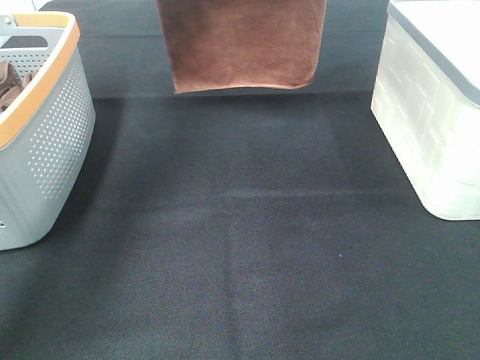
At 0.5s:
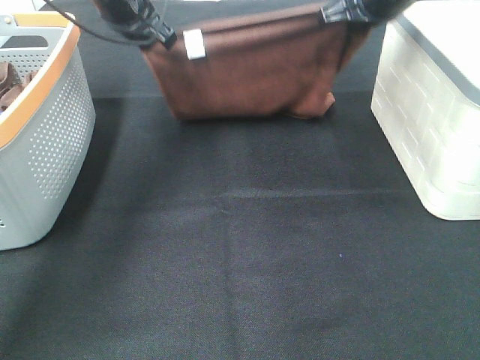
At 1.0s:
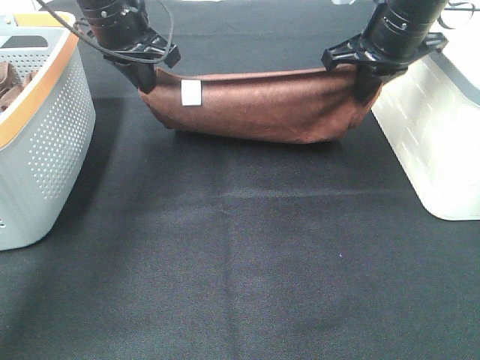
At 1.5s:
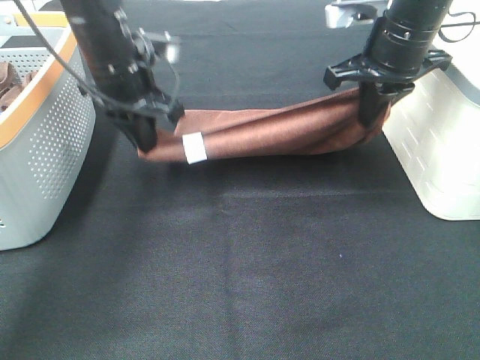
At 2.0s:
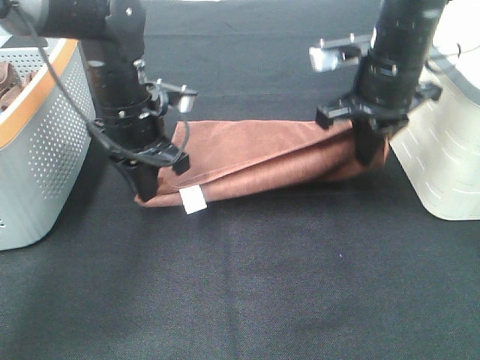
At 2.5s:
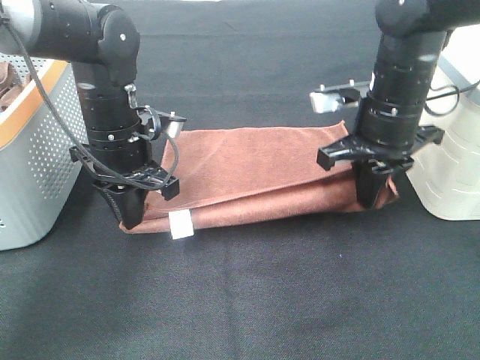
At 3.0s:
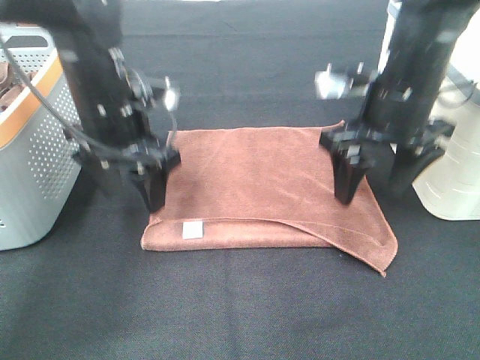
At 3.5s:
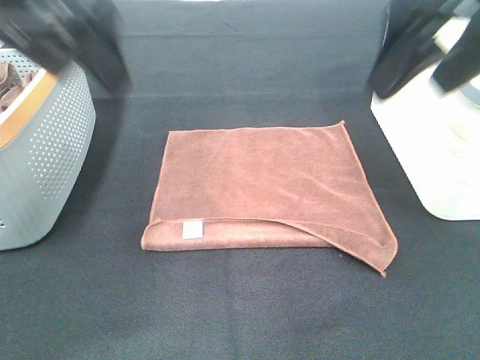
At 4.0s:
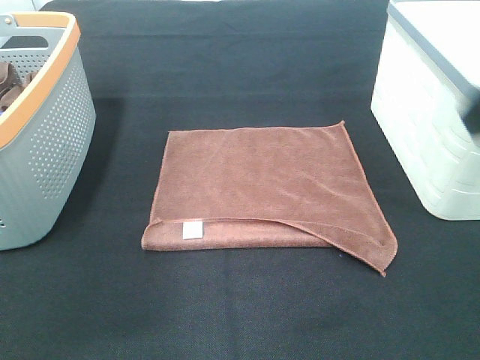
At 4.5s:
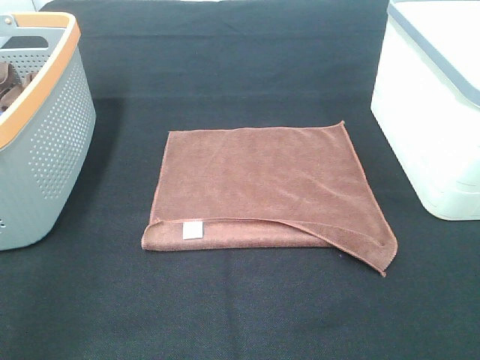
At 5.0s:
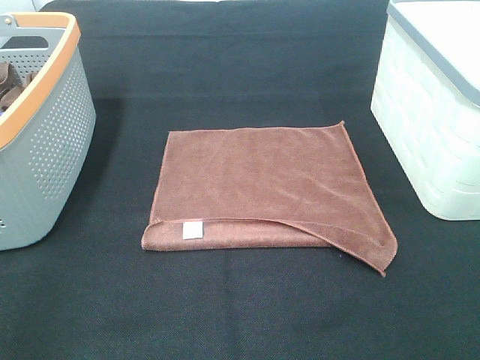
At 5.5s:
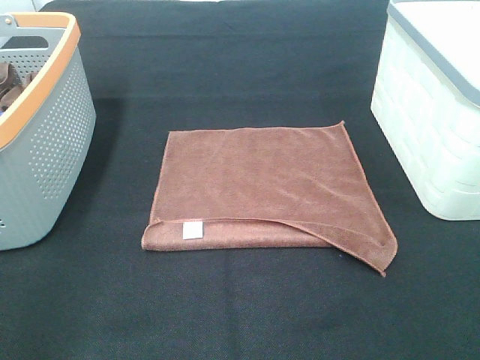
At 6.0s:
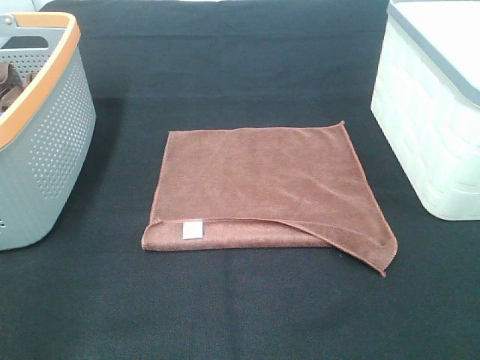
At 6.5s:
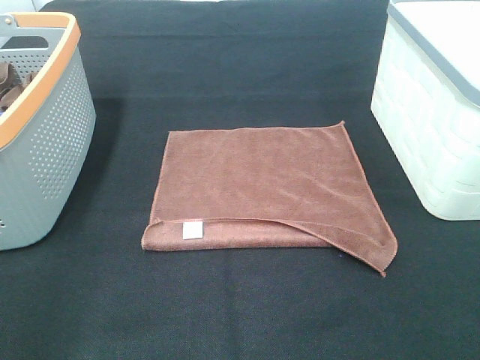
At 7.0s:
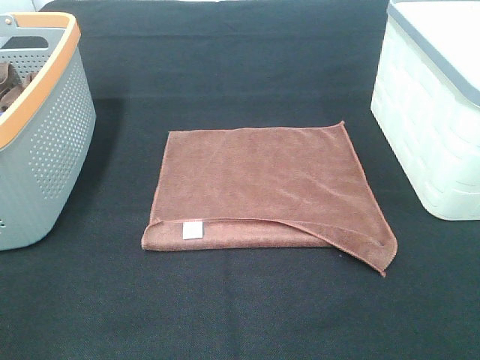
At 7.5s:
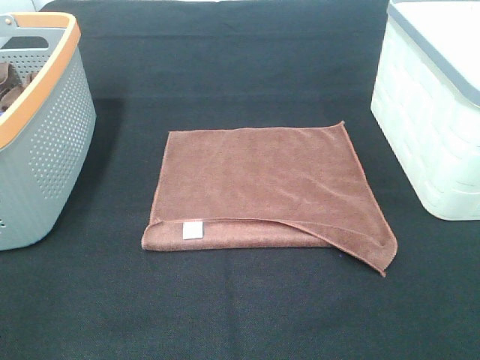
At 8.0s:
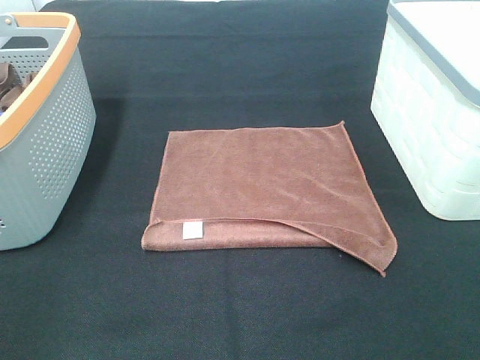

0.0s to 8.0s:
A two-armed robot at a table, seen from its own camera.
Task of the whole recording: Remove the towel and place it.
0.0s to 2.0s: Both grippers move downward and backward, approximately 20 cm.
2.0s to 4.0s: The left gripper travels upward, backward and to the left by some 35 cm, and opens its fingers, while the right gripper travels backward and upward by roughly 25 cm, and opens.
4.0s to 6.0s: The right gripper shifts approximately 15 cm backward and downward.

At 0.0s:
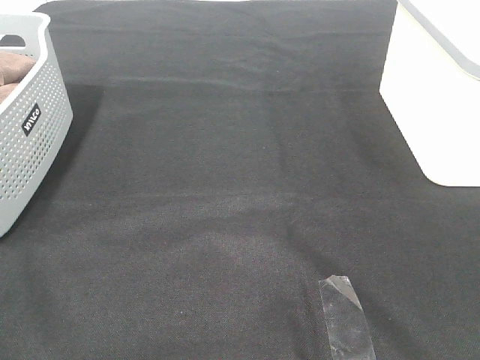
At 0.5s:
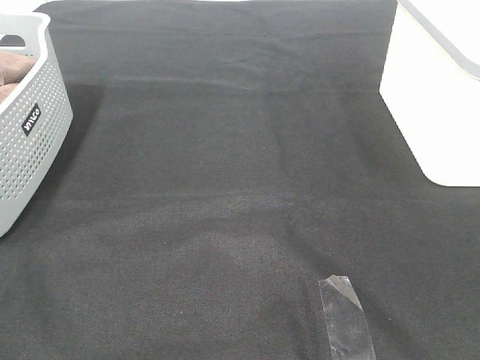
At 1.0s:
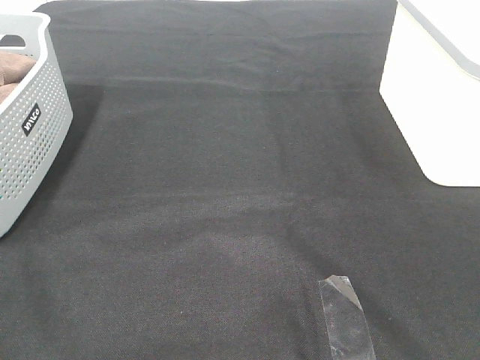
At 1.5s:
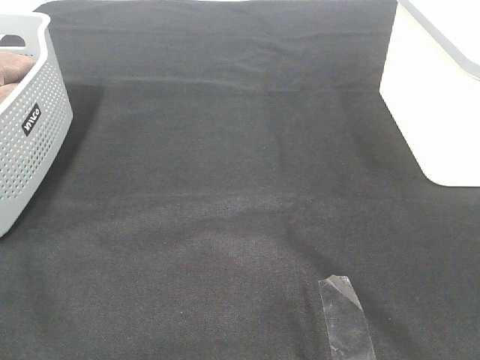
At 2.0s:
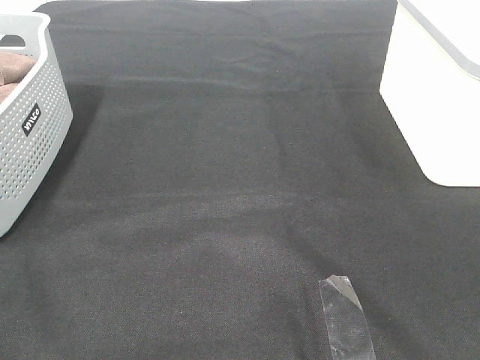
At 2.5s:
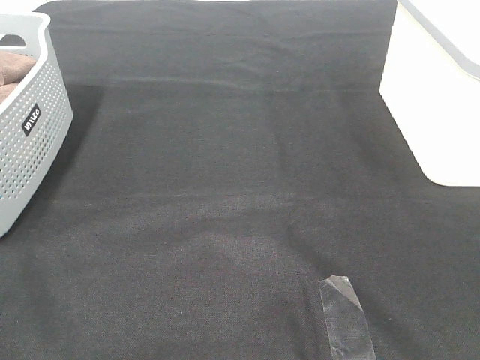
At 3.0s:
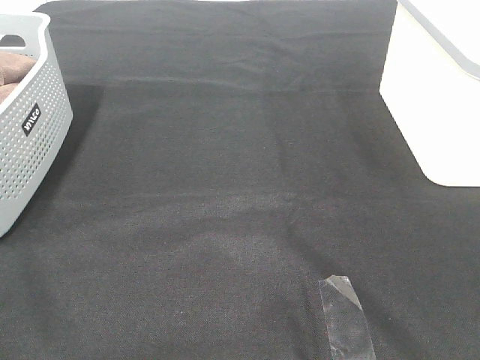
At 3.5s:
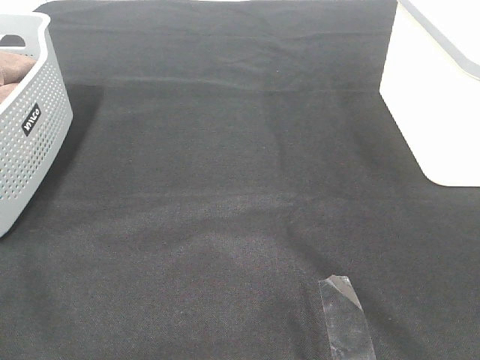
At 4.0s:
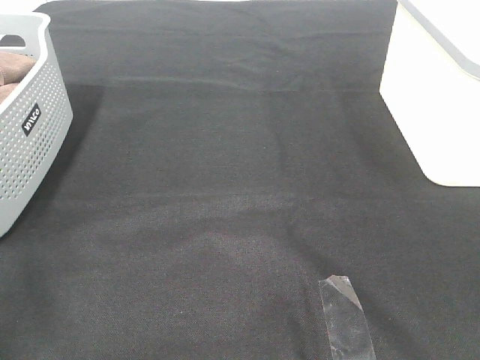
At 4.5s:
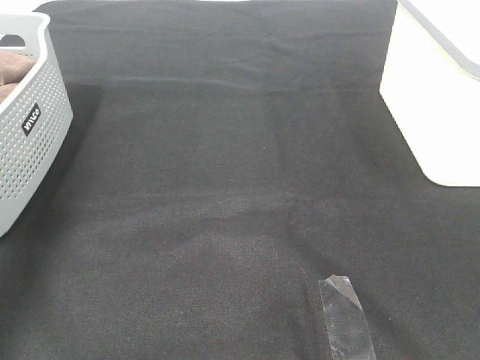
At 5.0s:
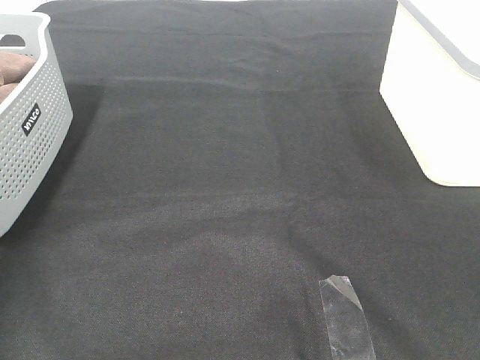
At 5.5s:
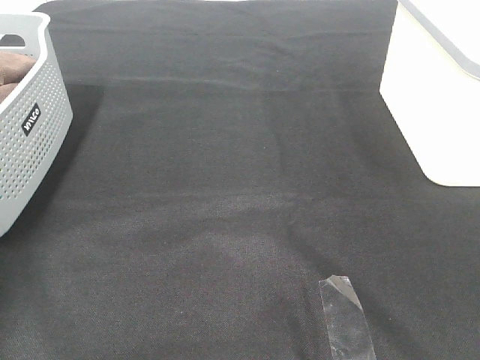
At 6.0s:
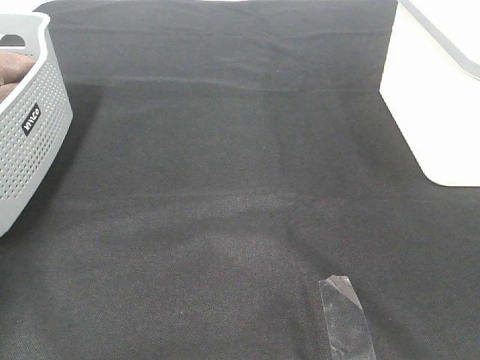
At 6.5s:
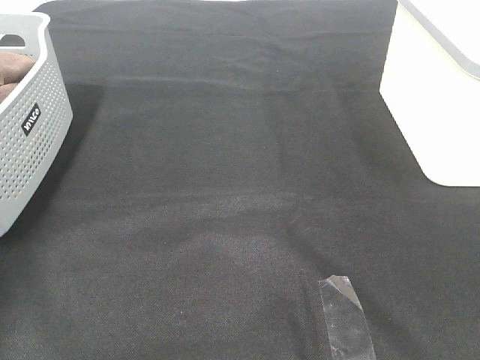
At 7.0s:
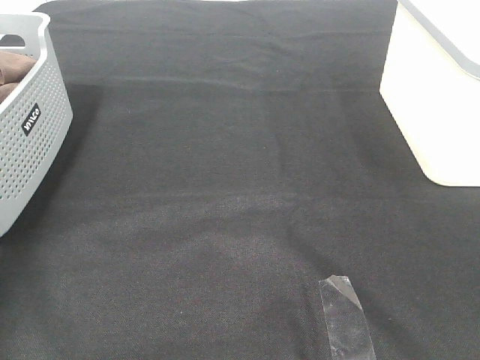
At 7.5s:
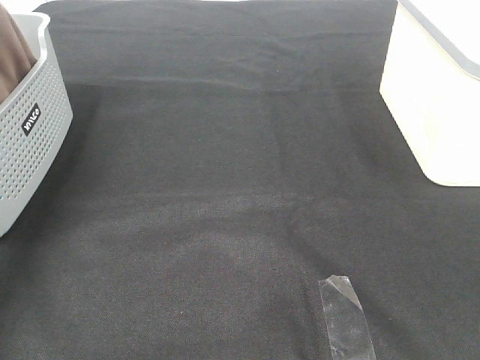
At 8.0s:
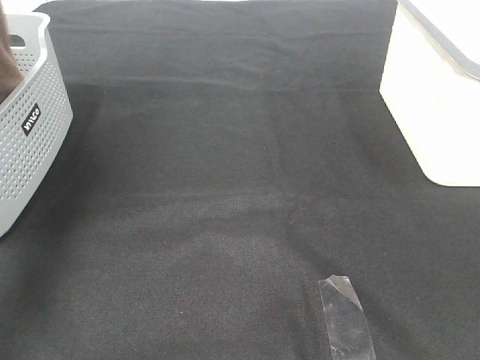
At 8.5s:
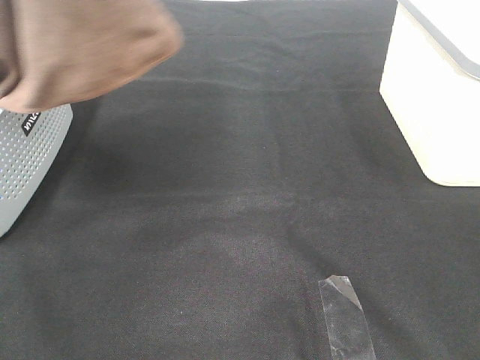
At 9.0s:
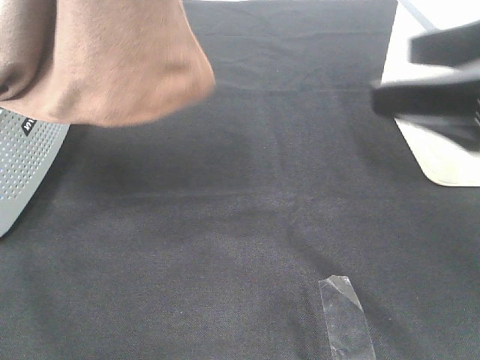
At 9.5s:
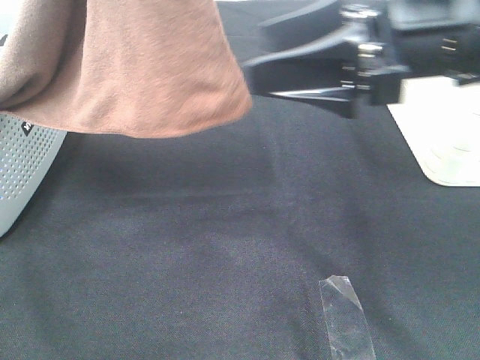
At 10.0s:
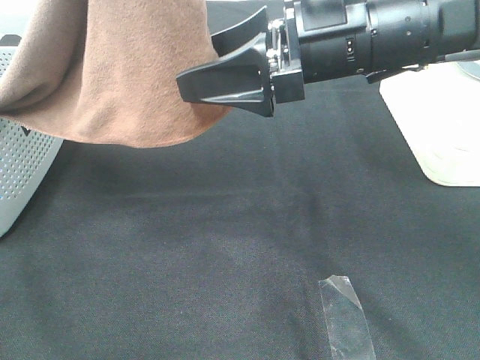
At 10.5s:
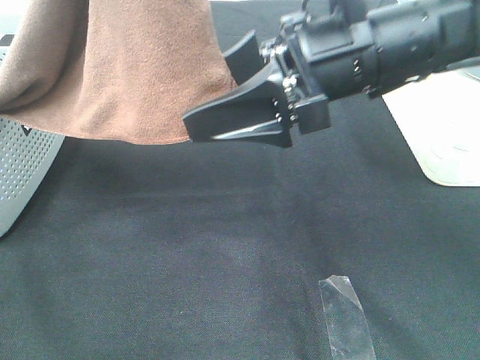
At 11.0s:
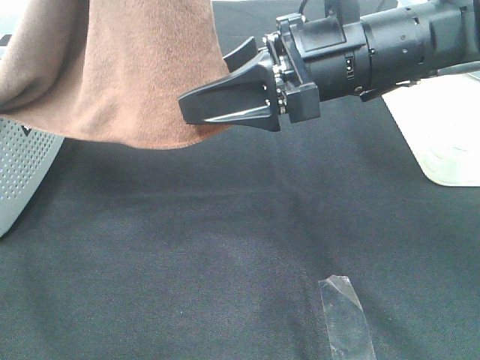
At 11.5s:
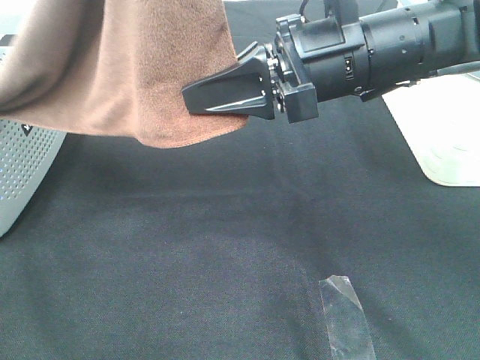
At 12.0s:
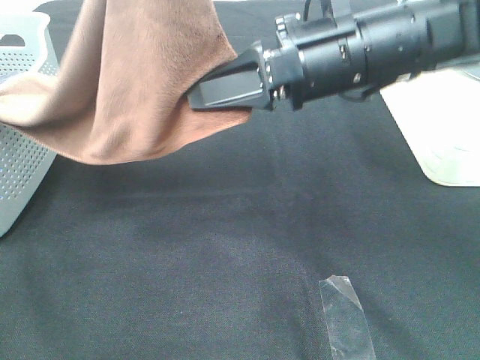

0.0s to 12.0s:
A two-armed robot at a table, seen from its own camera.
Task of the whole recording: Remove the towel and place it.
Step, 8.0s to 11.0s: Right hand: grab a corner of the brown towel and straighten it.
0.0s to 2.0s: The two grippers keep their place.
6.0s to 8.0s: The left gripper heads upward, backward and to the right, covering approximately 35 cm, and closes up.
8.0s to 10.0s: The left gripper moves to the right and backward, about 15 cm, while the right gripper heads forward and to the left, covering some 35 cm.
10.0s to 12.0s: The right gripper closes up.

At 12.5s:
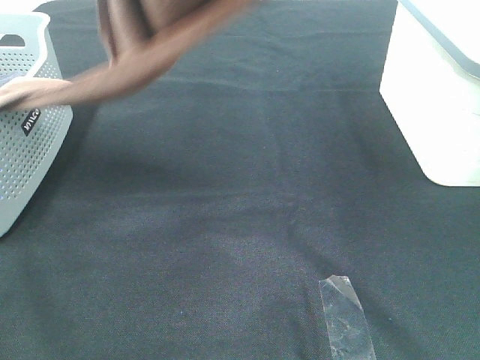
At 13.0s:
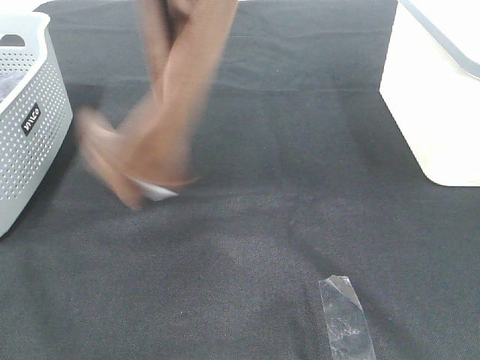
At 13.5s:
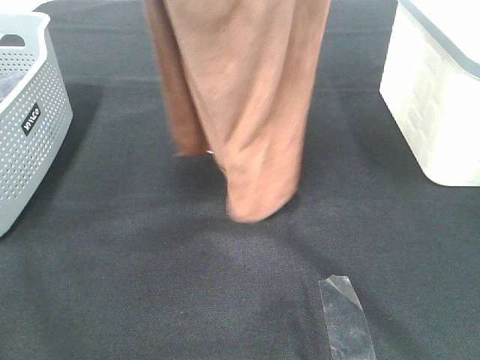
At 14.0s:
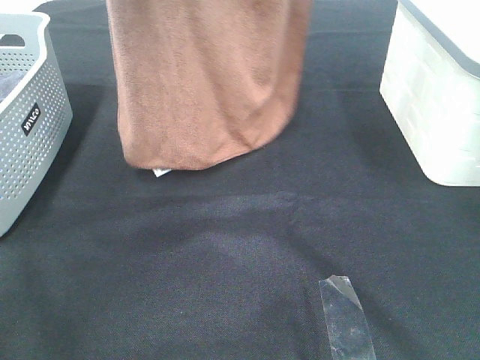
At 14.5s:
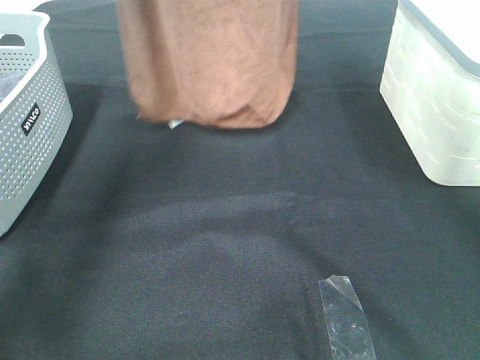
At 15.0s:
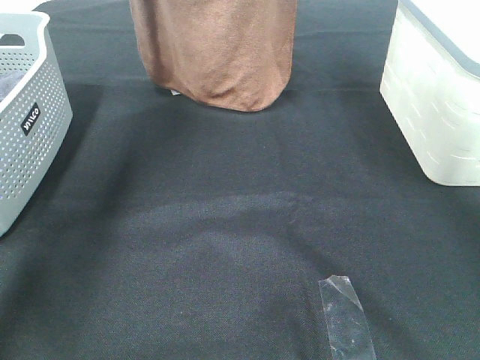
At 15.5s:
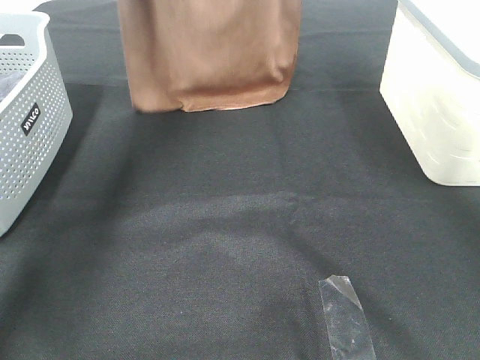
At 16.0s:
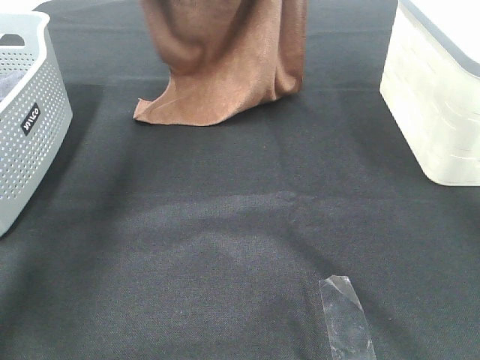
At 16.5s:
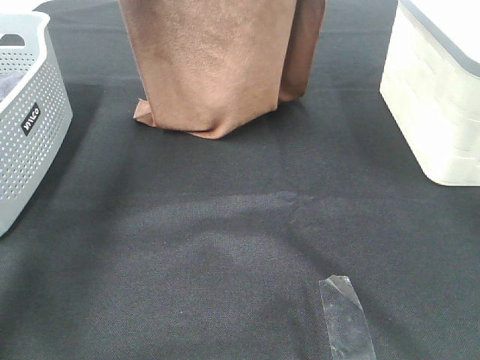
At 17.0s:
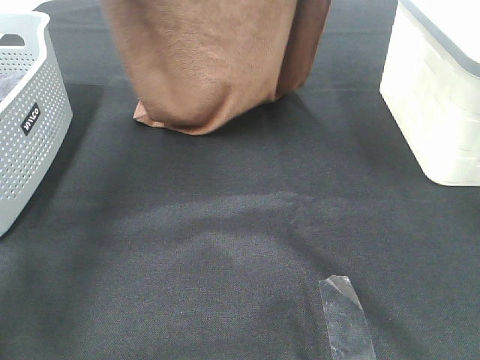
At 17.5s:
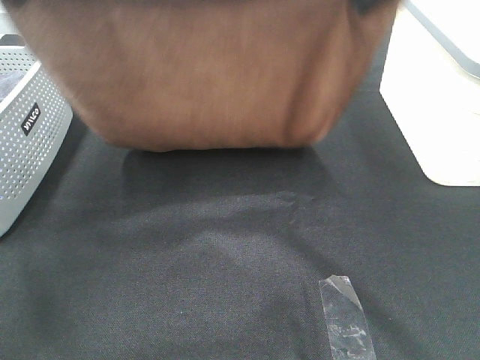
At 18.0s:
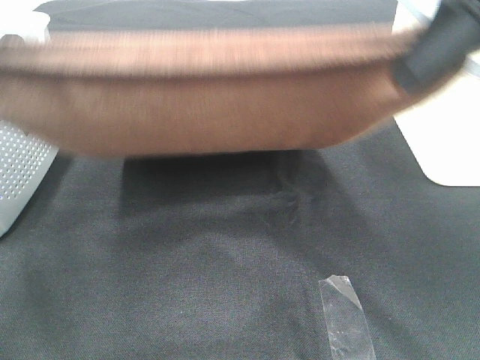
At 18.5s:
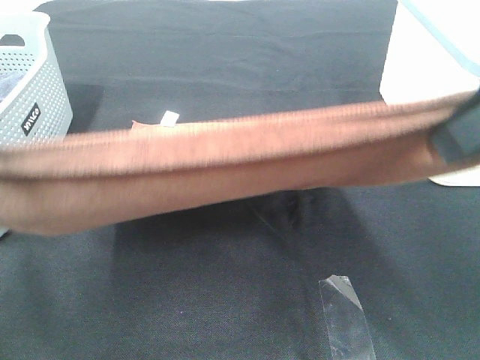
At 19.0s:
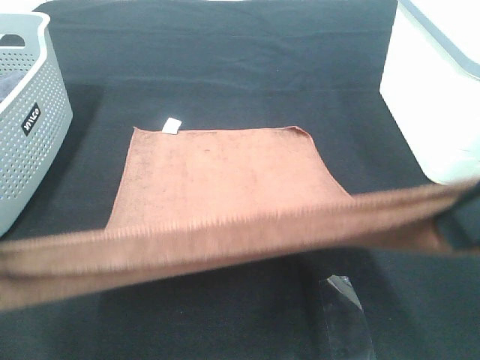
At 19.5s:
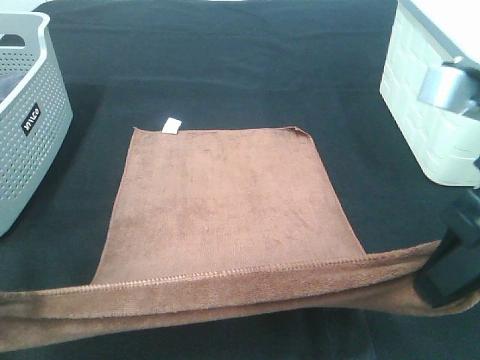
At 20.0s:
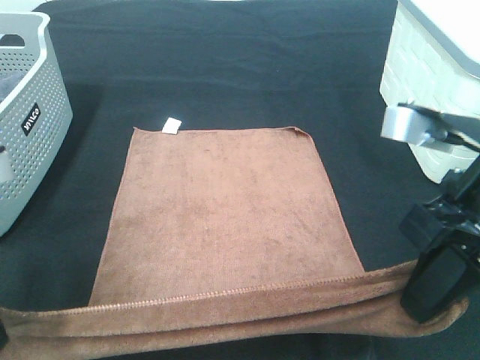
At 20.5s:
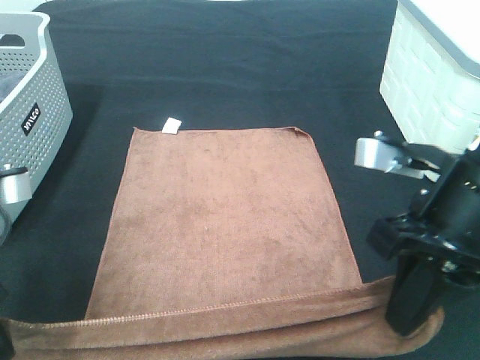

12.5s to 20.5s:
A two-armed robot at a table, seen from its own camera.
Task of the whole recording: Remove the towel and place it.
Step, 12.5s to 18.5s: Left hand: spread the brown towel flat on the table.
Step, 12.5s to 18.5s: Right hand: spread the brown towel flat on the table.
12.5s to 14.5s: Both grippers move forward, some 15 cm.
14.5s to 16.5s: Both grippers travel together downward, about 5 cm.
16.5s to 18.5s: The grippers both shift backward by roughly 30 cm.
18.5s to 20.5s: The grippers both shift downward by about 15 cm.
